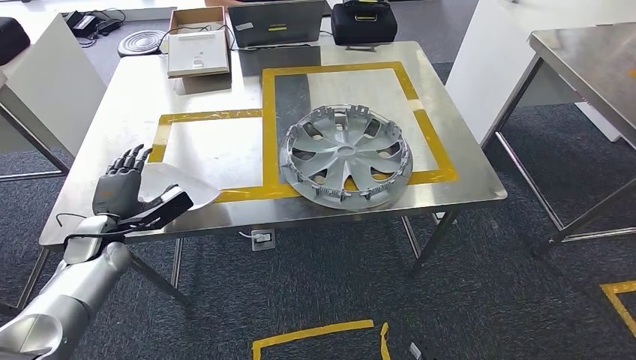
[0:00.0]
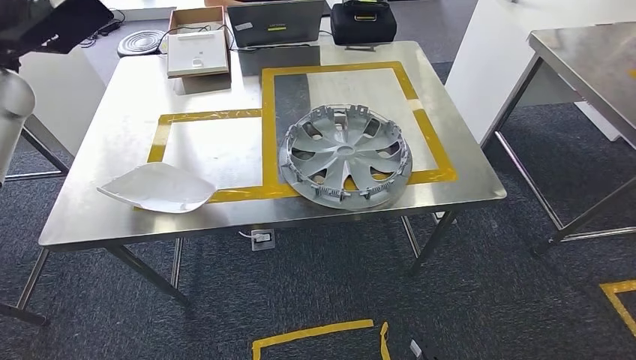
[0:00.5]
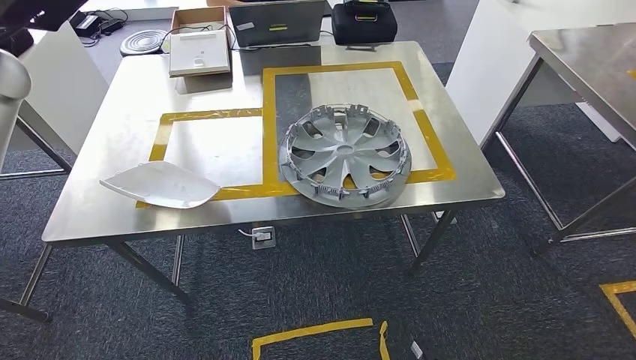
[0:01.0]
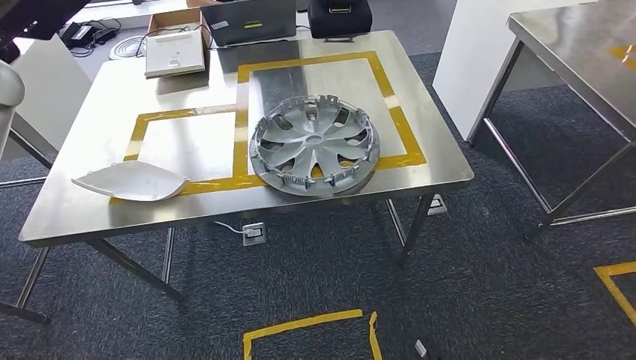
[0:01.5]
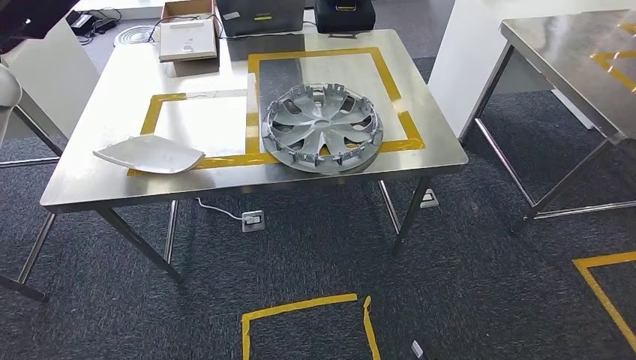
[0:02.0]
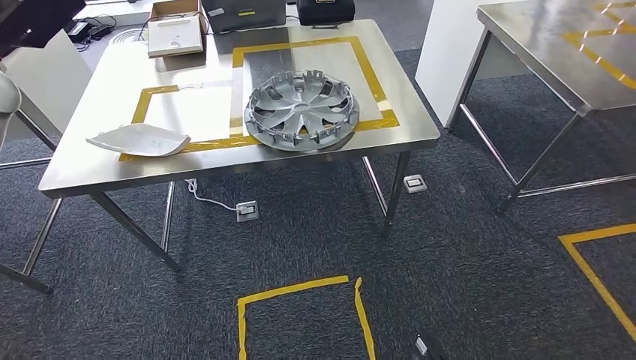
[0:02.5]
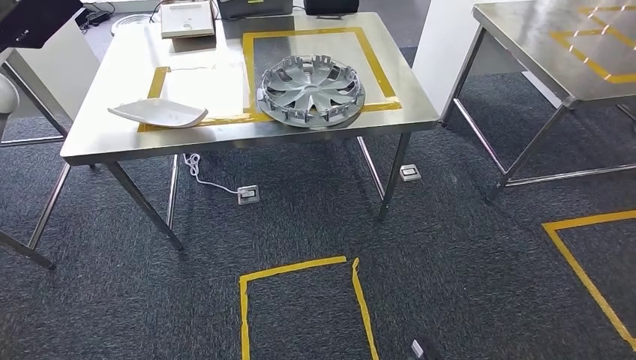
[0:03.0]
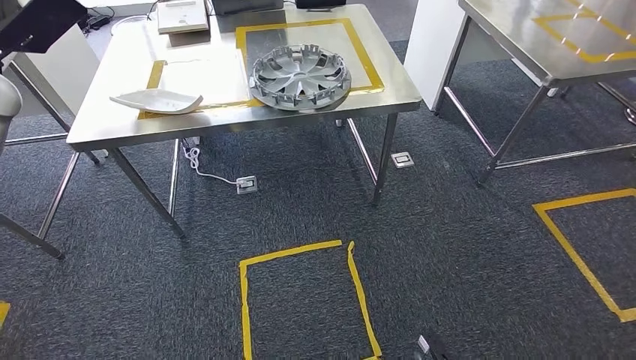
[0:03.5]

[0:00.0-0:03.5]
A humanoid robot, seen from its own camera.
Step, 0:01.0 to 0:03.5: Move to the initial position of the workbench.
